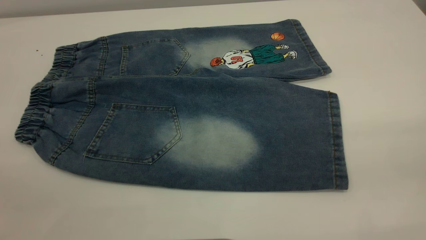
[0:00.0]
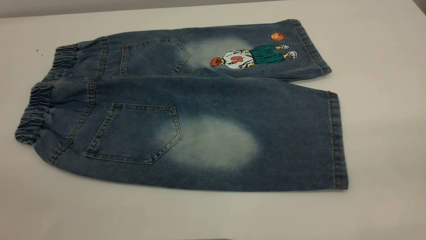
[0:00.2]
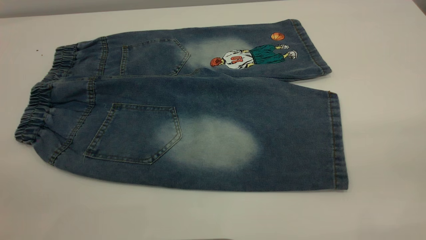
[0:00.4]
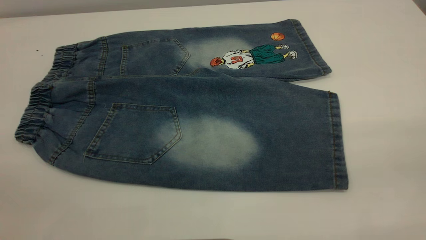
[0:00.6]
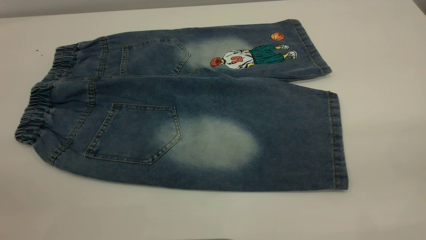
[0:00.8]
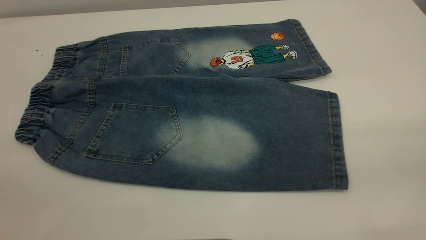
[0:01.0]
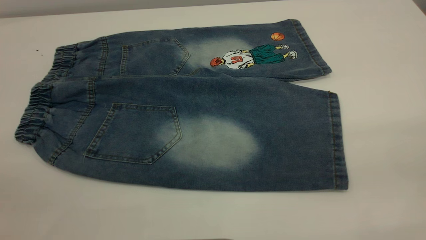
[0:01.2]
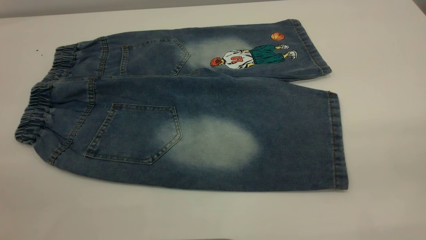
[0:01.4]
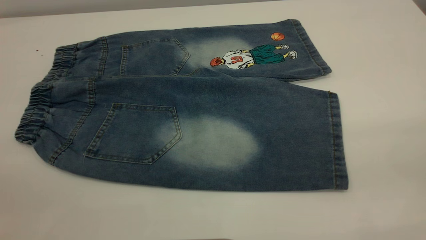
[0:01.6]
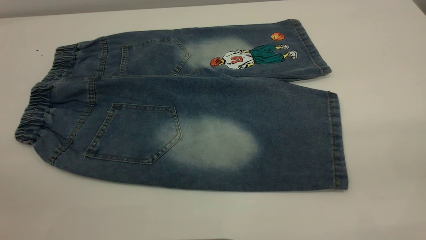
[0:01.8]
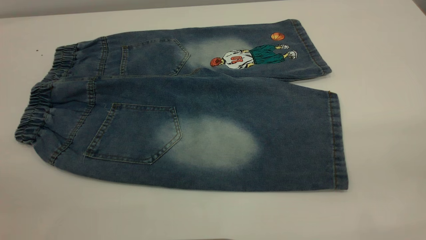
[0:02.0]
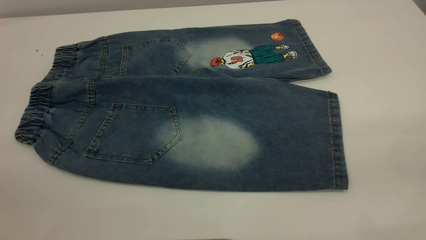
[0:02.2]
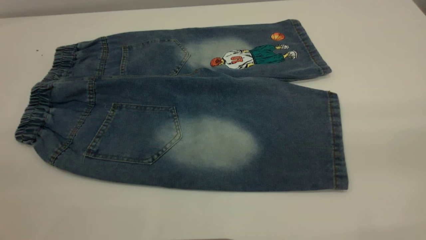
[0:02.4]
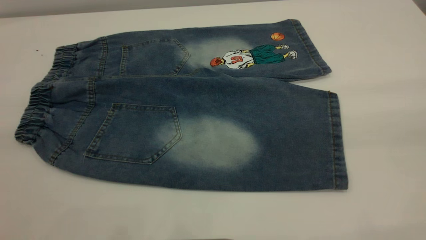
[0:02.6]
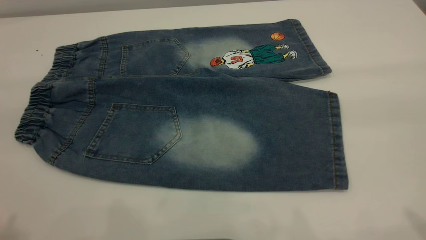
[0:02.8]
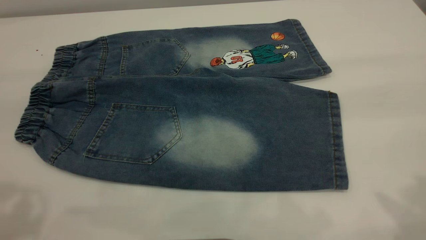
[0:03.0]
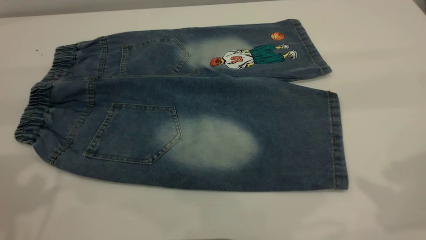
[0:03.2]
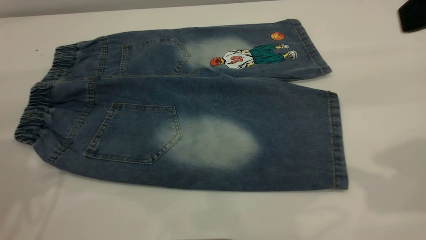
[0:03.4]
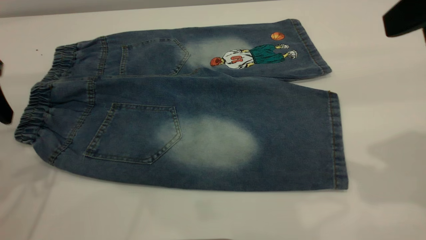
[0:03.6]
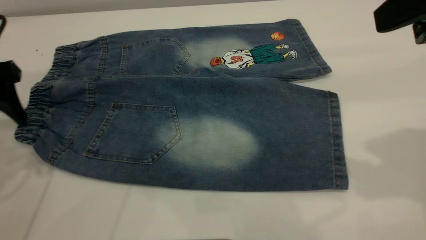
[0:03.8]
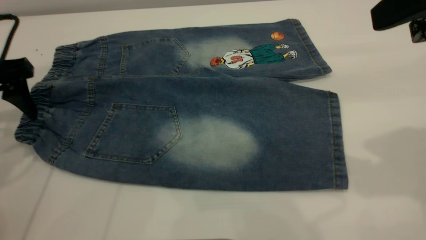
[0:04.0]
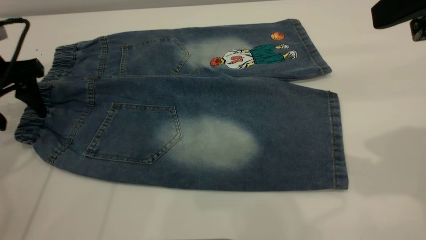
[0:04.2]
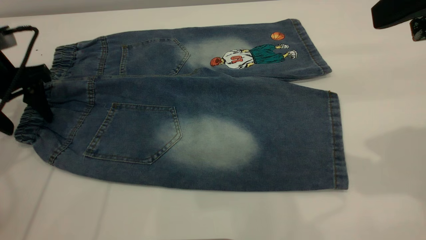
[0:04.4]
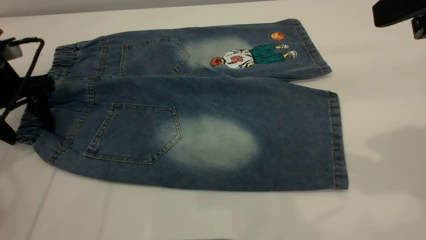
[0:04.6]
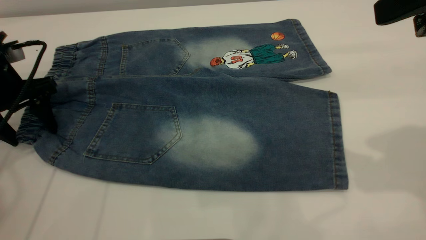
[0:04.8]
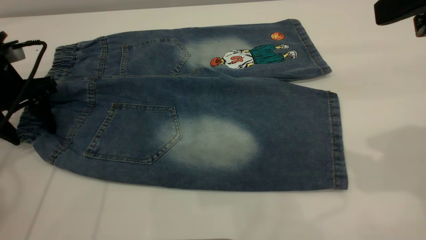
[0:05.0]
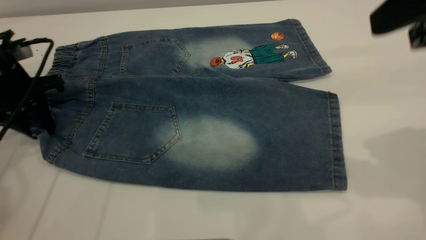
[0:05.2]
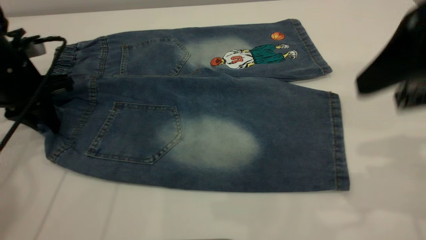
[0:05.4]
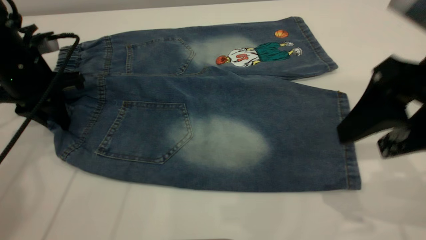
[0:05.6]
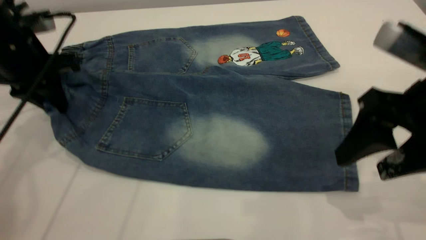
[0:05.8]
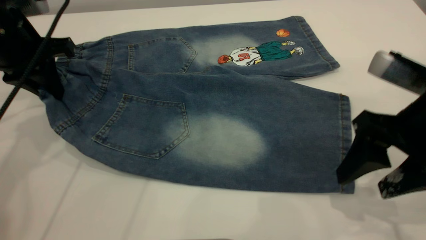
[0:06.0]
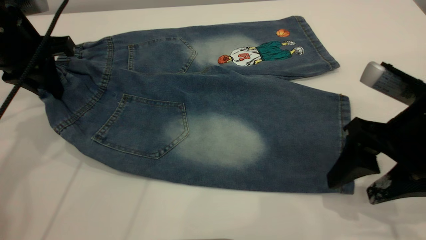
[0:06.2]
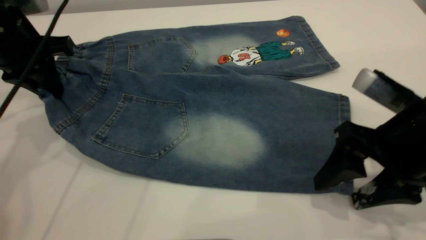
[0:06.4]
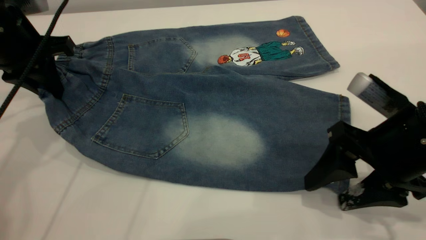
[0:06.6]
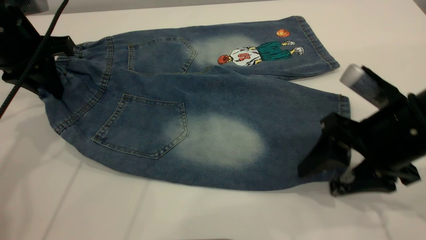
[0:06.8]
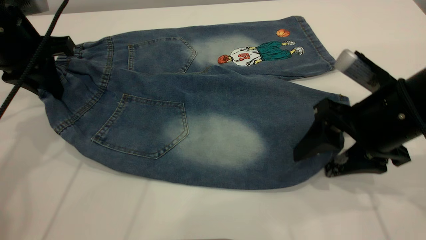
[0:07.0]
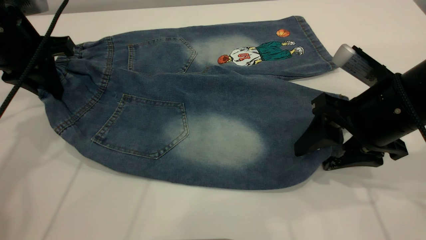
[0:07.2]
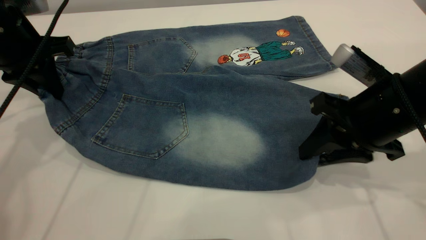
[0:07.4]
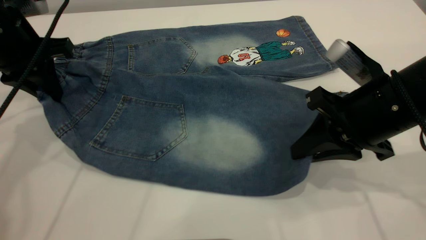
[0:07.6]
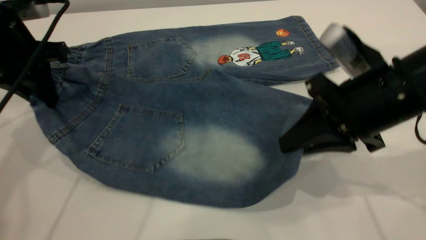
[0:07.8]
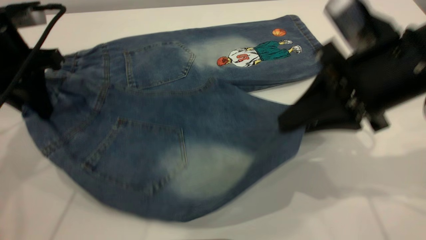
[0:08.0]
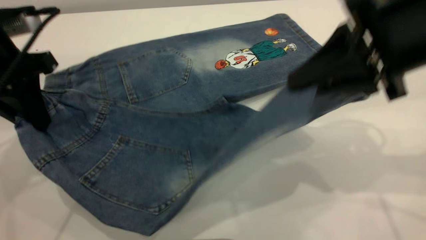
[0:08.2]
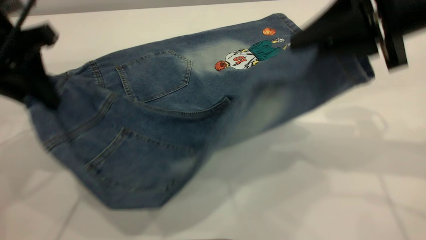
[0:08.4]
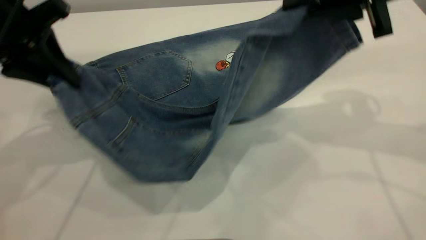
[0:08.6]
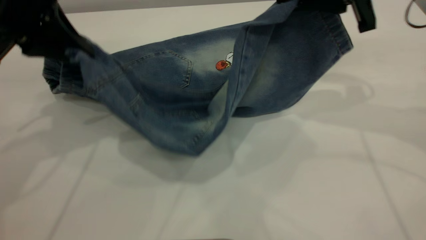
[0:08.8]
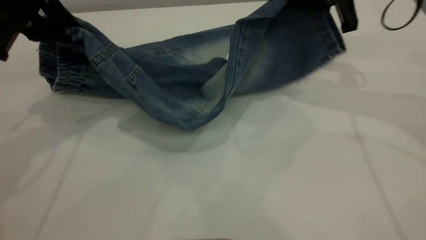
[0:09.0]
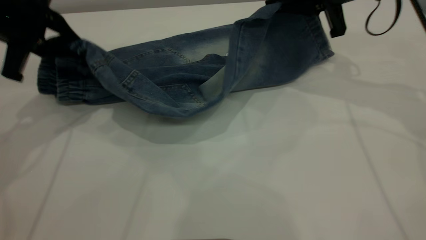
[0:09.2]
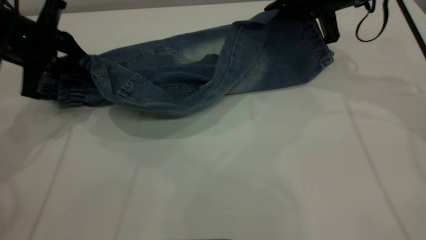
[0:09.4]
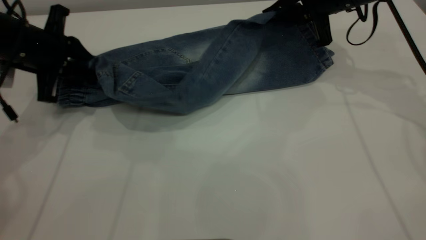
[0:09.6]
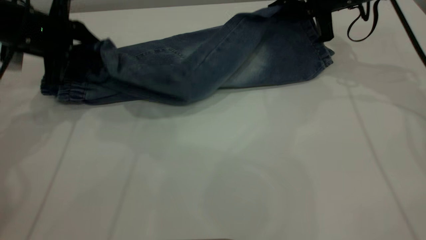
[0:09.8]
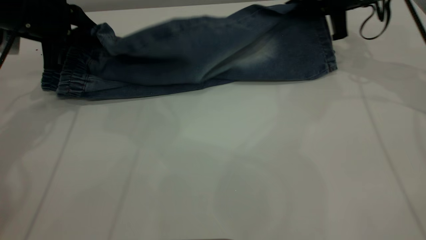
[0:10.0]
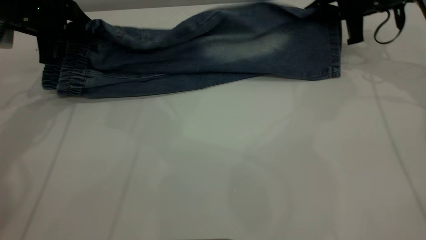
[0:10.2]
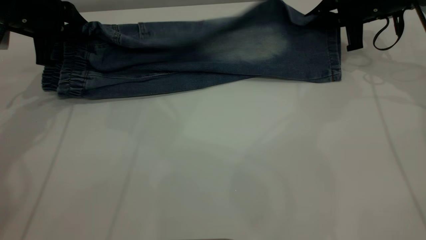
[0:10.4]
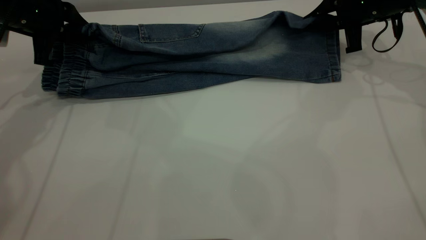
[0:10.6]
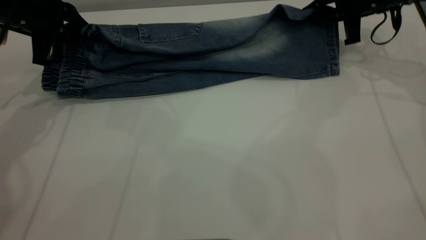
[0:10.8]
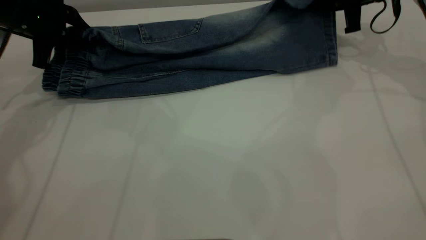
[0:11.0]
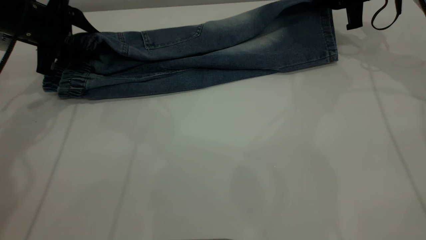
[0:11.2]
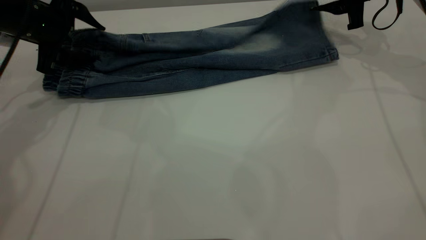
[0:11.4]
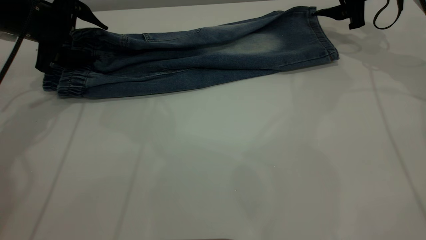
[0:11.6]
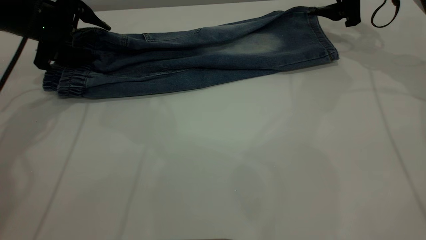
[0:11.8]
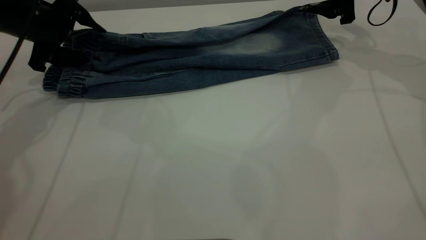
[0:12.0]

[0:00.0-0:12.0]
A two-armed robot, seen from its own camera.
0:00.0 to 0:01.6: Both grippers stay put.
0:03.0 to 0:04.4: The left gripper travels downward and forward by some 25 cm. Meanwhile the right gripper heads forward, covering approximately 5 cm.
0:04.4 to 0:06.0: The left gripper ends up approximately 5 cm from where it was, and closes up. The right gripper travels downward by approximately 15 cm.
0:06.0 to 0:07.6: The right gripper shifts by about 5 cm, and closes.
0:07.6 to 0:09.0: The right gripper moves forward and upward, about 15 cm.
0:09.0 to 0:10.4: The left gripper moves forward and downward, roughly 10 cm. Meanwhile the right gripper travels forward, downward and to the right by about 15 cm.
0:10.4 to 0:12.0: The left gripper opens its fingers. Meanwhile the right gripper opens.

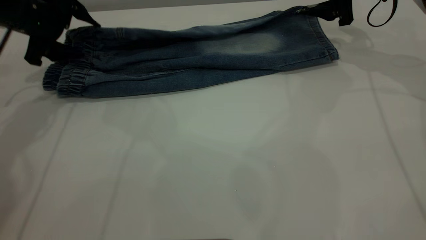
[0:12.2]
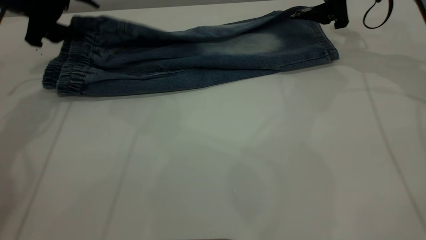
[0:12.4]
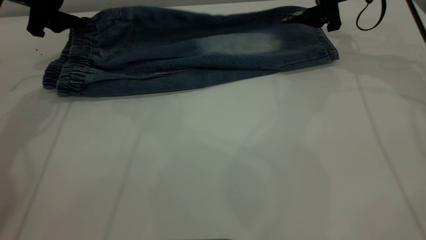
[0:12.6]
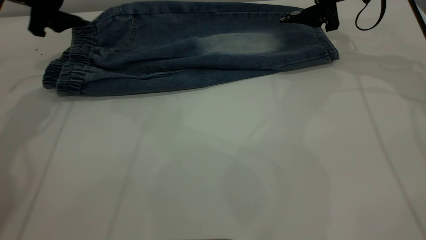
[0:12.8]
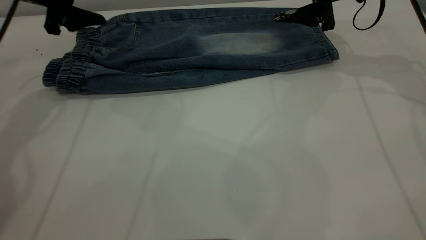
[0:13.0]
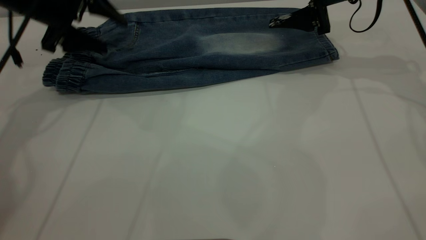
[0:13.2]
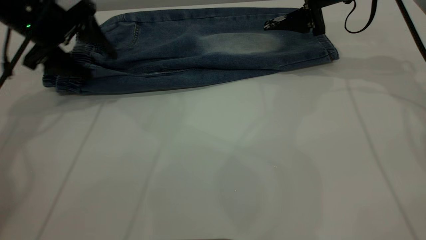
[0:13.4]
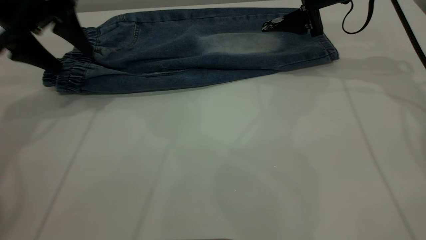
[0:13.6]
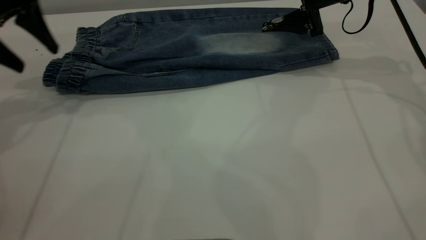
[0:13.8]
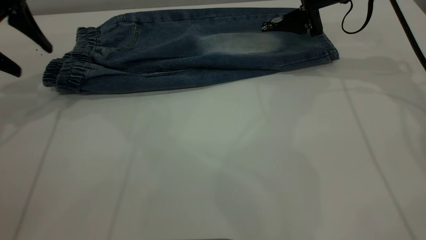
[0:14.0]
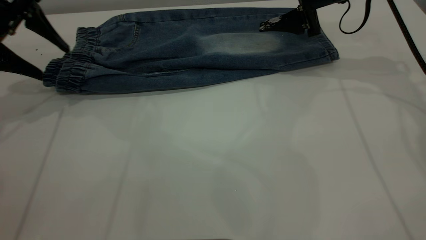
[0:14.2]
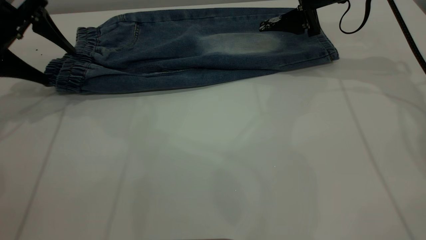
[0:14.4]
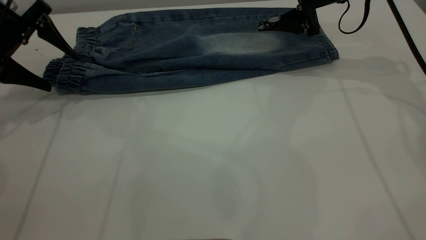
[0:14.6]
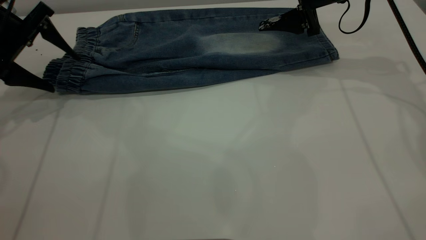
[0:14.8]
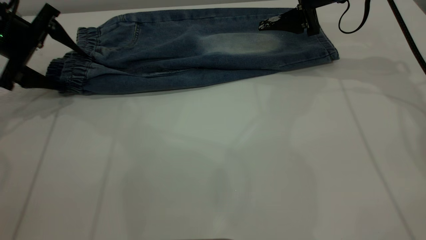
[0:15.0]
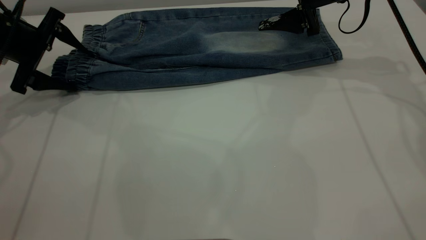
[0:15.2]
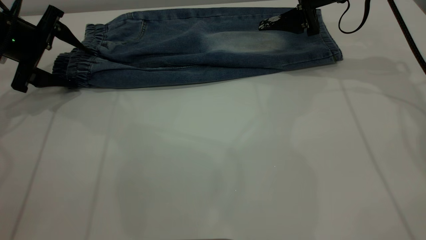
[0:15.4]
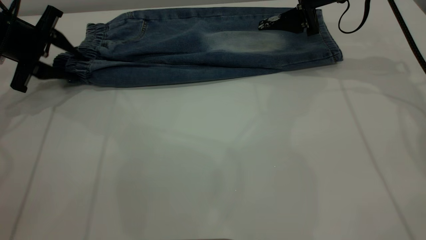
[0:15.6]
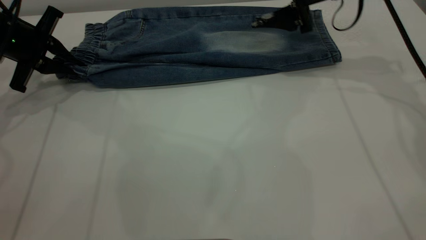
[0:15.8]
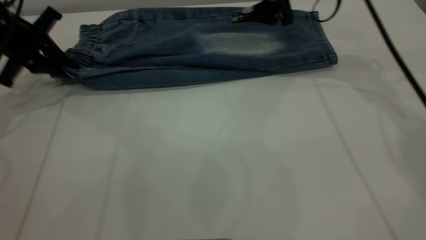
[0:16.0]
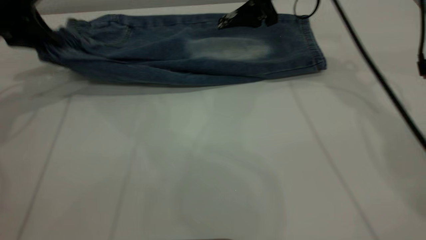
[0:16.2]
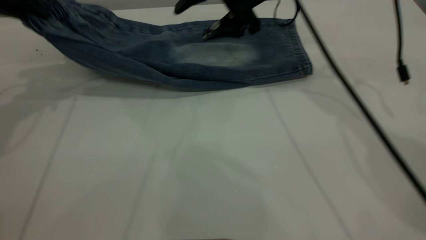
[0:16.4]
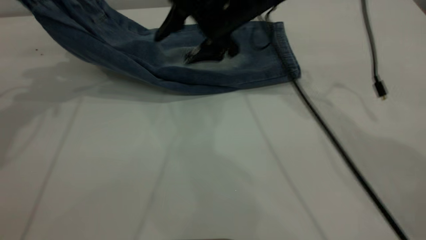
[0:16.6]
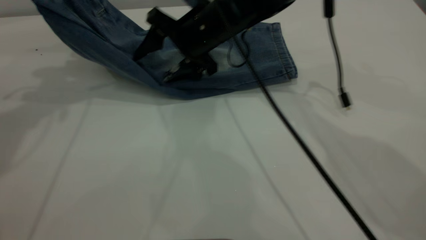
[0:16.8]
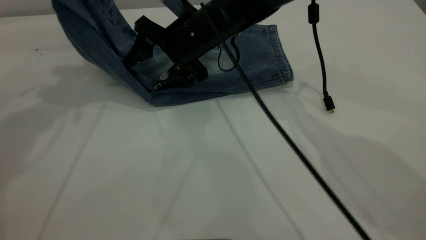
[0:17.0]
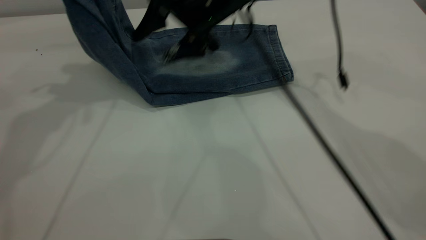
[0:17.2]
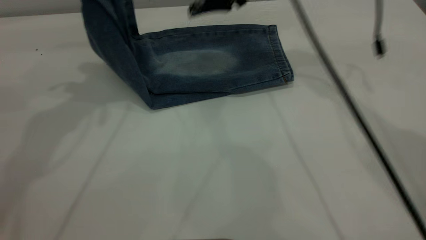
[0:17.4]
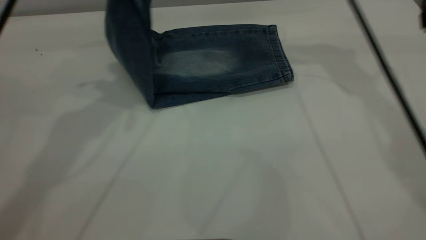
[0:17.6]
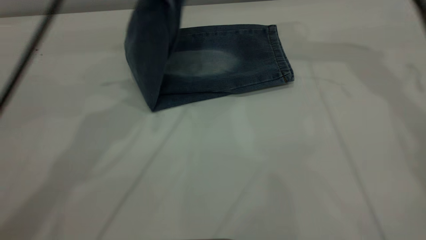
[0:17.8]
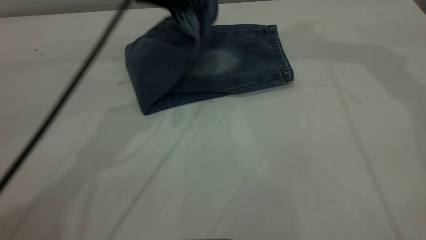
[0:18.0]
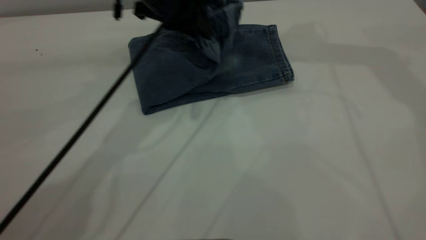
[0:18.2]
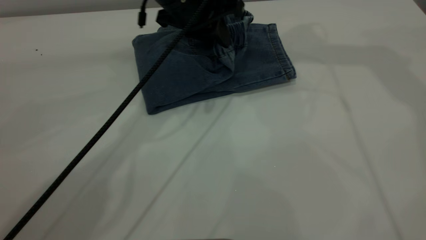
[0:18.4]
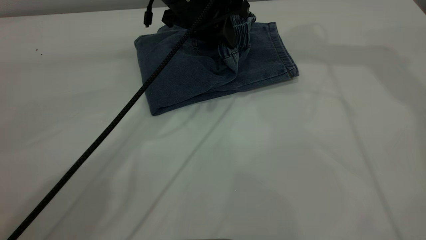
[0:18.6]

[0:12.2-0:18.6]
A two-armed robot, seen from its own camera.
0:12.2 to 0:13.8: The right gripper moves to the left, about 5 cm, while the left gripper moves upward, roughly 5 cm.
0:13.8 to 0:15.4: The left gripper travels downward by approximately 10 cm.
0:15.4 to 0:17.0: The left gripper goes roughly 20 cm upward, and closes. Meanwhile the right gripper heads to the left, covering roughly 20 cm.
0:17.0 to 0:18.6: The right gripper travels upward and to the right by some 30 cm. The left gripper travels to the right and downward by roughly 25 cm.
